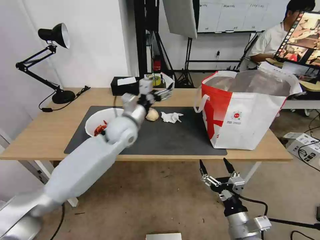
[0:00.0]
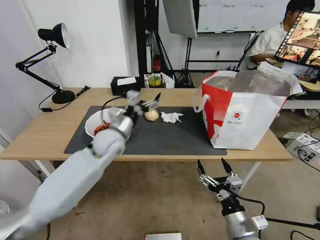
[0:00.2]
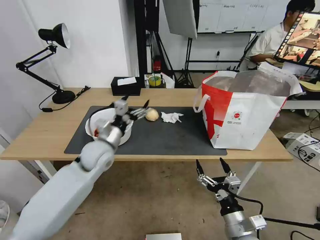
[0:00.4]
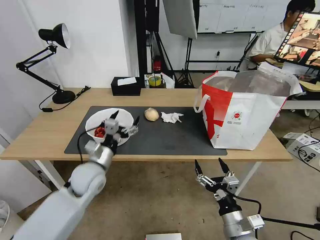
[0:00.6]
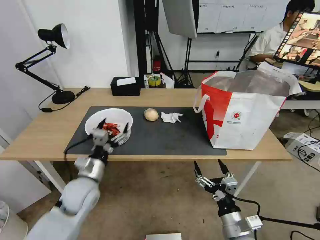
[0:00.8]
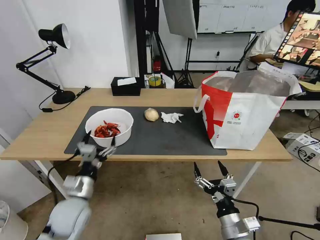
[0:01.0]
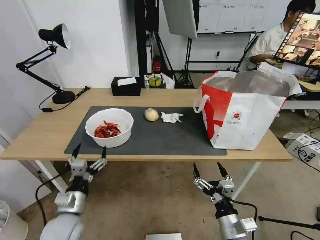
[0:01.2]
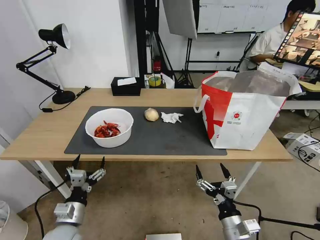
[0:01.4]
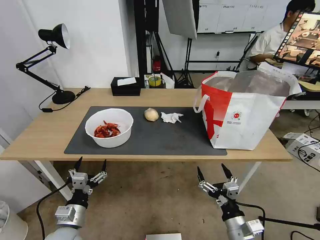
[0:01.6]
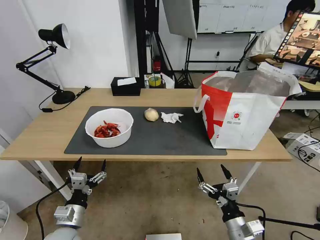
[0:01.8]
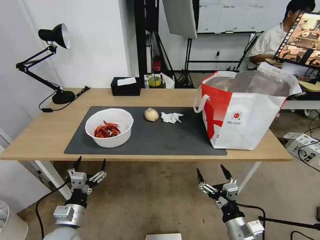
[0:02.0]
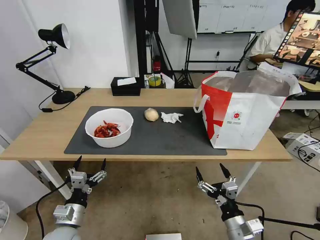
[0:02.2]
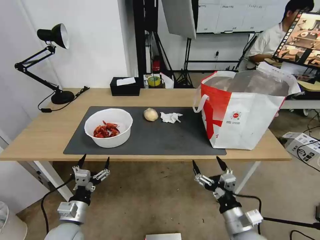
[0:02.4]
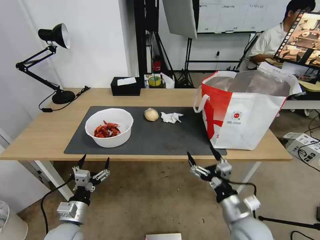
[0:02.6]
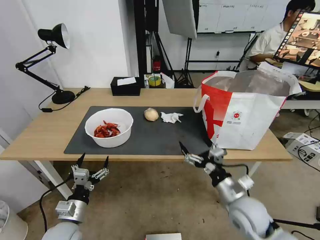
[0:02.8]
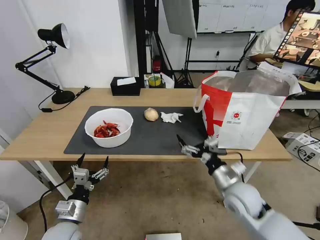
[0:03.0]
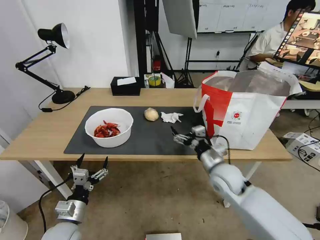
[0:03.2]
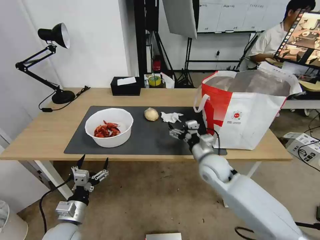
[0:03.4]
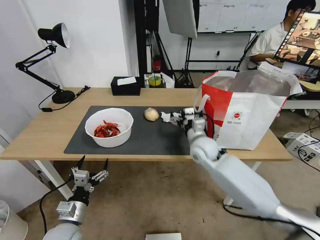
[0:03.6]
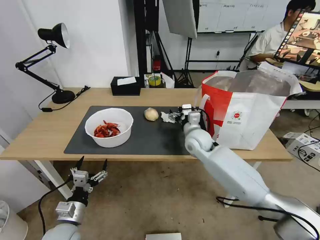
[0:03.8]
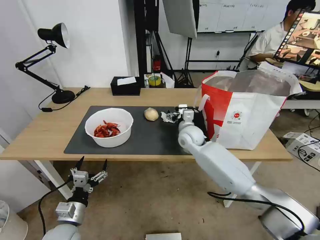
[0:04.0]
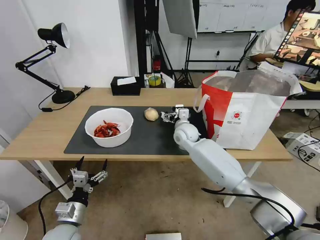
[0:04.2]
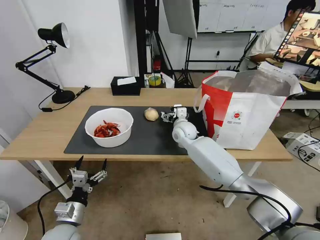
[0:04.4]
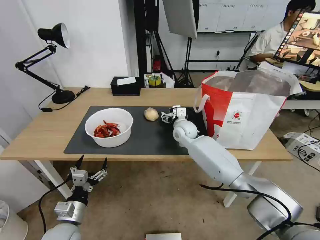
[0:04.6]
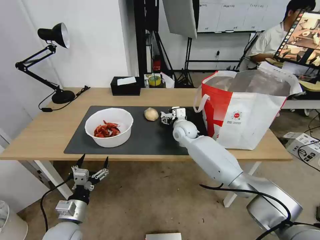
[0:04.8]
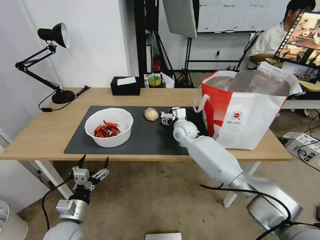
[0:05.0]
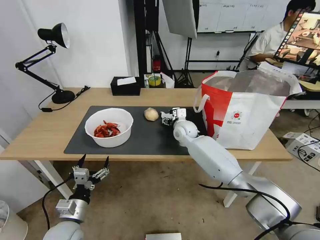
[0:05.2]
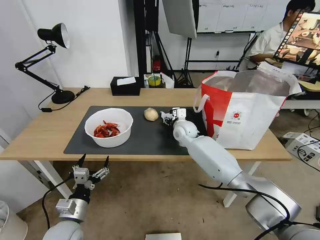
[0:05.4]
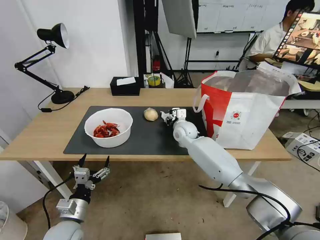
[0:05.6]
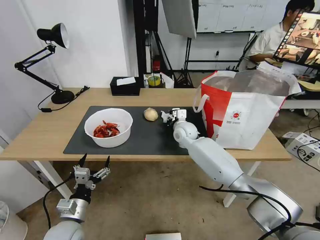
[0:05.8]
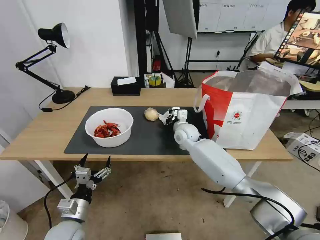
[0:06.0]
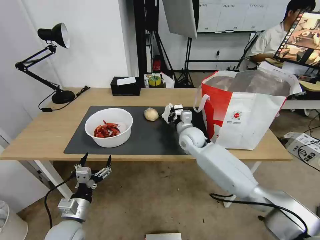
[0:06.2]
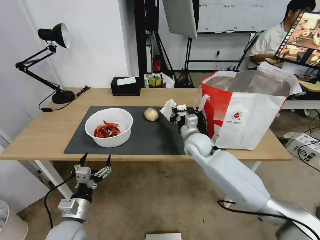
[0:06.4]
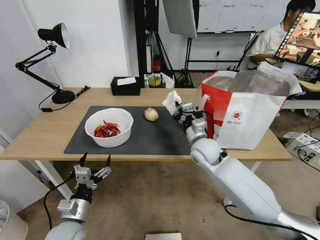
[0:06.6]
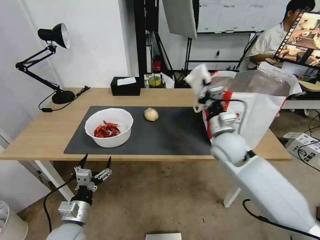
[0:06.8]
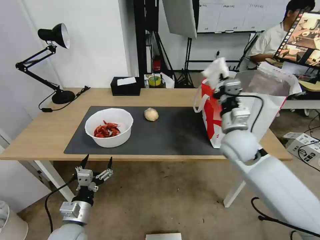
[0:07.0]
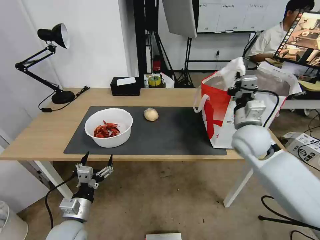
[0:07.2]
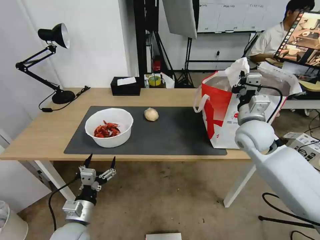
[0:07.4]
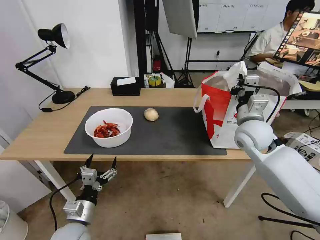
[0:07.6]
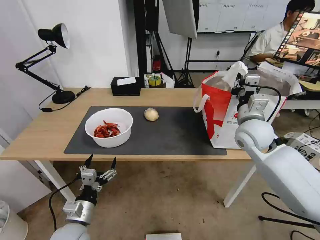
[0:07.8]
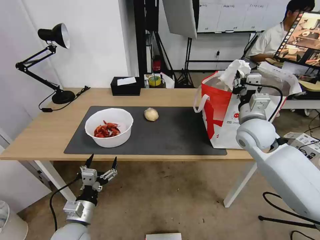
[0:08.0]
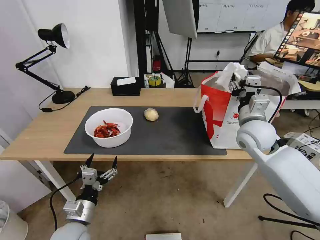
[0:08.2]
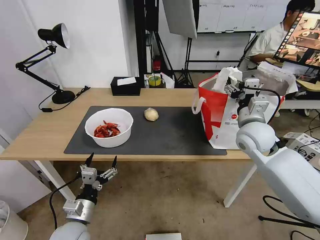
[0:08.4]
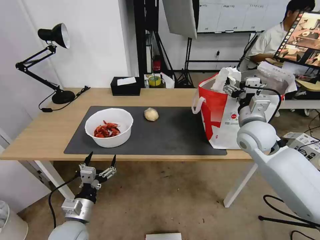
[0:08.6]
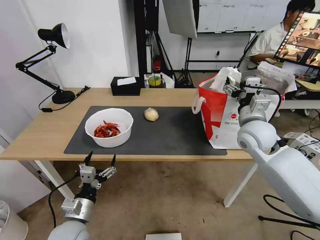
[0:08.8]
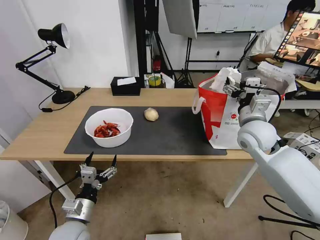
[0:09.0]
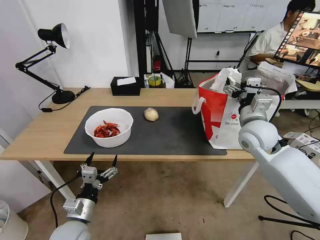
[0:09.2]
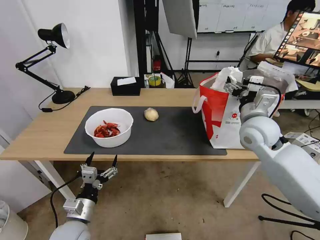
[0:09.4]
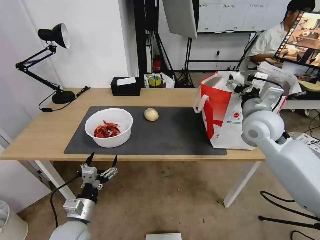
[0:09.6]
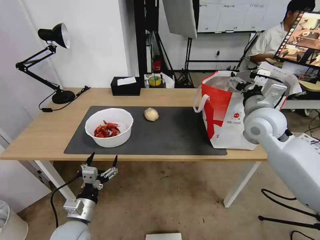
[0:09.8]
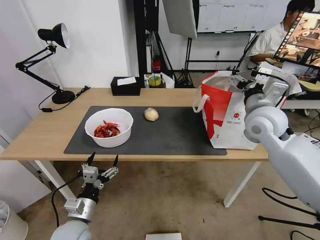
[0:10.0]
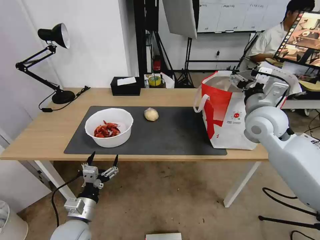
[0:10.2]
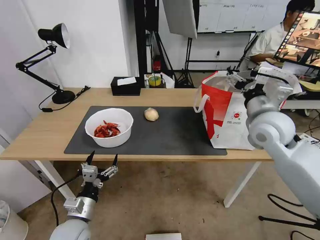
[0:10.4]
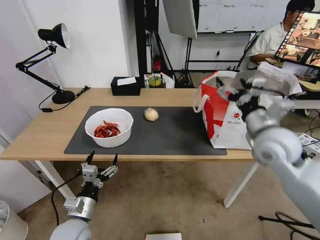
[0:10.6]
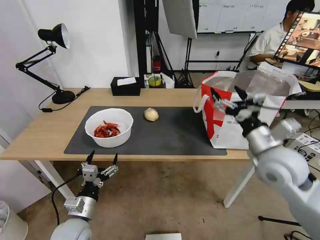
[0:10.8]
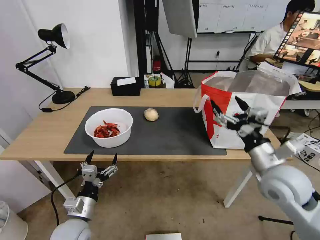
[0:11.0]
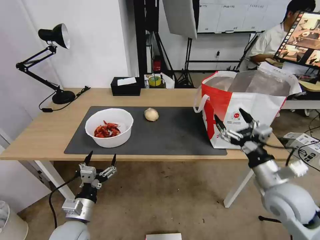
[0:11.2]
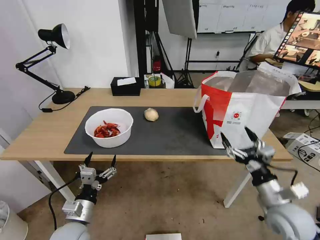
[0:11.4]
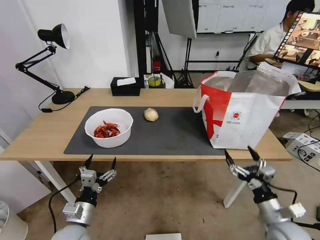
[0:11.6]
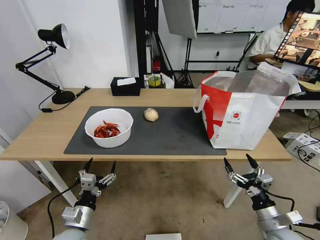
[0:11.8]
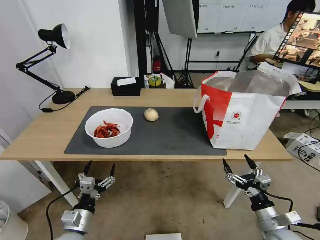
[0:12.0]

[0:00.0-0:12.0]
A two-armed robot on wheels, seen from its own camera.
Task of the whole recording: Pick up the trash from the table and place it into the takeout bag.
0:00.0 to 0:01.6: The left gripper shifts about 40 cm backward, downward and to the left.
0:01.6 to 0:03.0: The right gripper goes approximately 15 cm forward and upward.
0:03.0 to 0:04.4: The right gripper shifts roughly 30 cm forward and to the left.
0:04.4 to 0:06.0: The right gripper closes its fingers.
0:06.0 to 0:07.6: The right gripper is displaced to the right, upward and backward by approximately 25 cm.
0:07.6 to 0:09.0: The right gripper opens up.
0:09.0 to 0:10.4: The right gripper moves roughly 5 cm.
0:10.4 to 0:12.0: The right gripper travels downward and backward by roughly 35 cm.

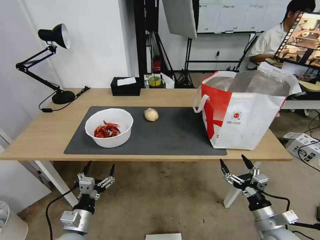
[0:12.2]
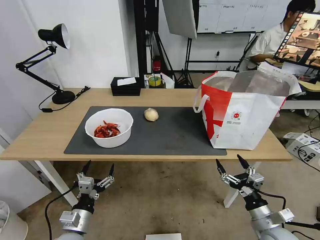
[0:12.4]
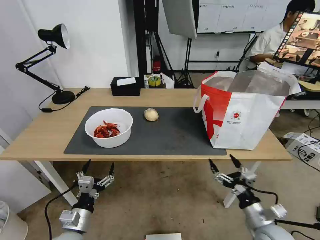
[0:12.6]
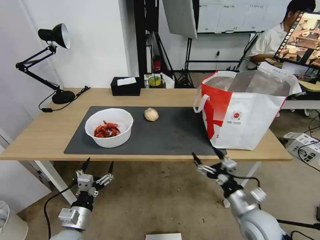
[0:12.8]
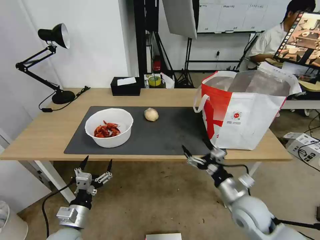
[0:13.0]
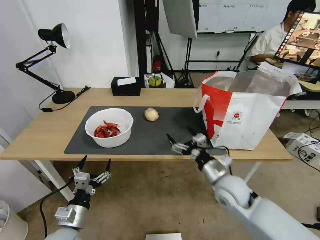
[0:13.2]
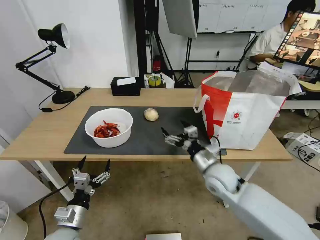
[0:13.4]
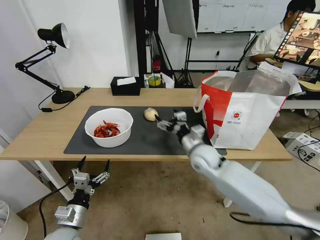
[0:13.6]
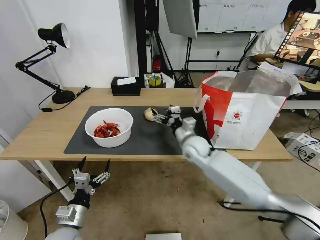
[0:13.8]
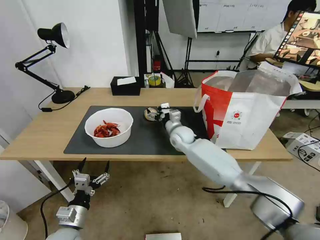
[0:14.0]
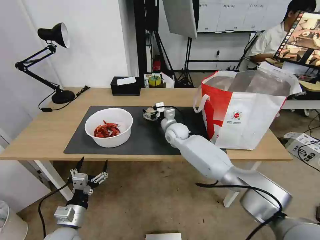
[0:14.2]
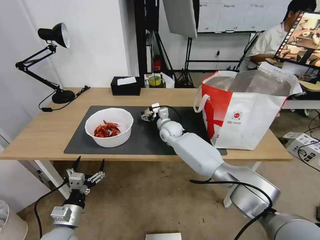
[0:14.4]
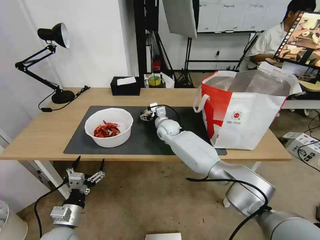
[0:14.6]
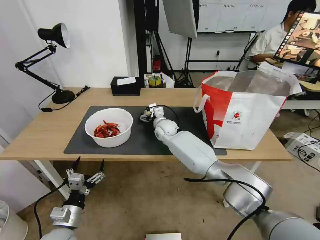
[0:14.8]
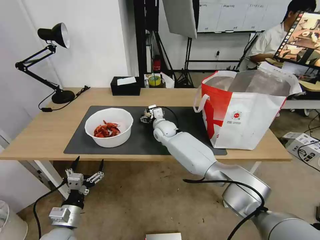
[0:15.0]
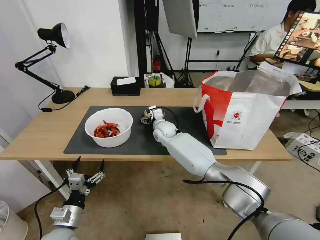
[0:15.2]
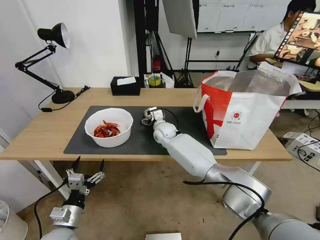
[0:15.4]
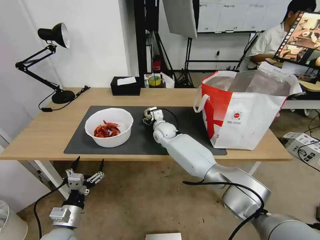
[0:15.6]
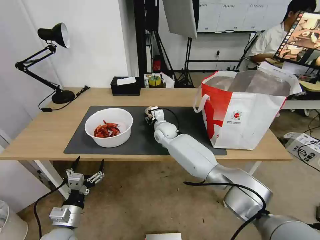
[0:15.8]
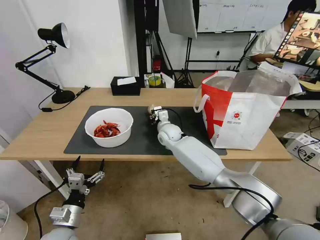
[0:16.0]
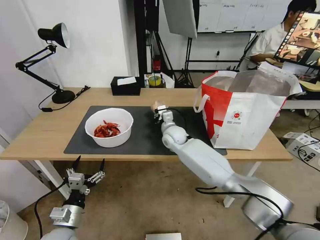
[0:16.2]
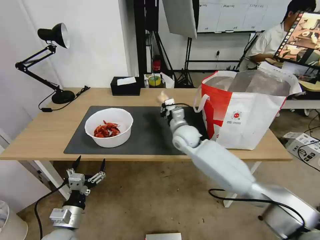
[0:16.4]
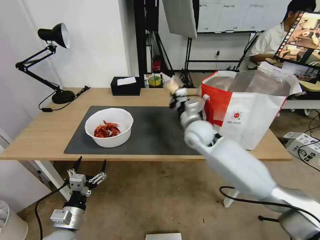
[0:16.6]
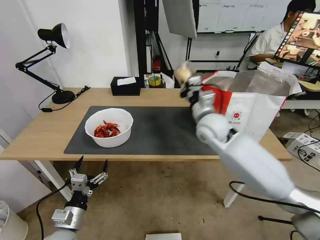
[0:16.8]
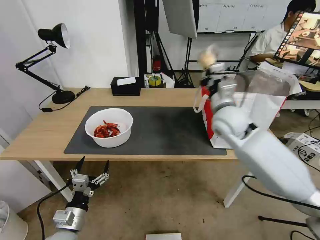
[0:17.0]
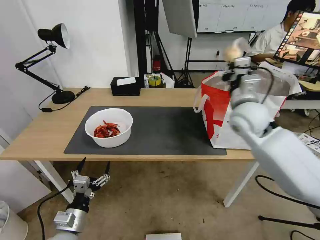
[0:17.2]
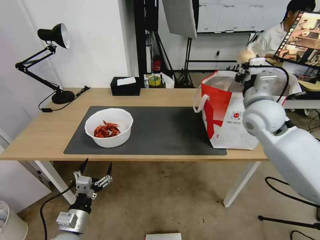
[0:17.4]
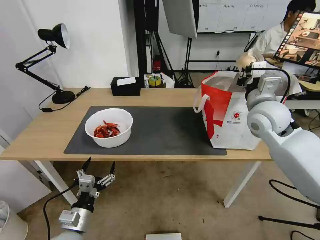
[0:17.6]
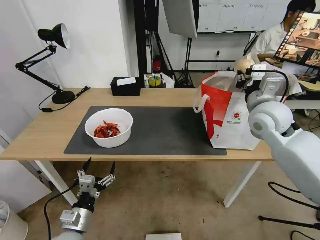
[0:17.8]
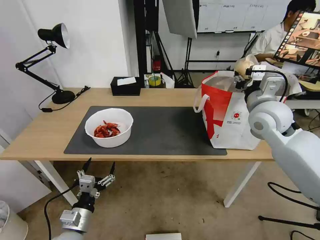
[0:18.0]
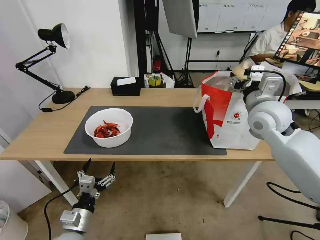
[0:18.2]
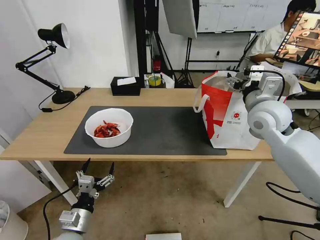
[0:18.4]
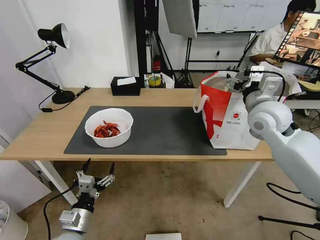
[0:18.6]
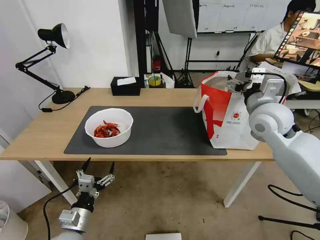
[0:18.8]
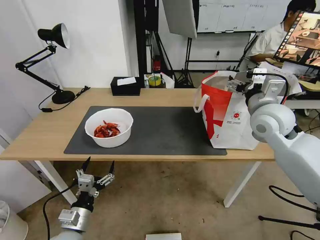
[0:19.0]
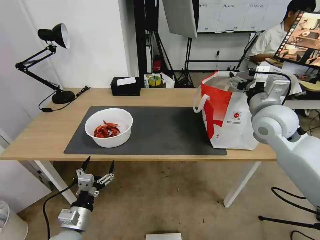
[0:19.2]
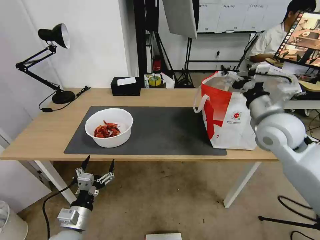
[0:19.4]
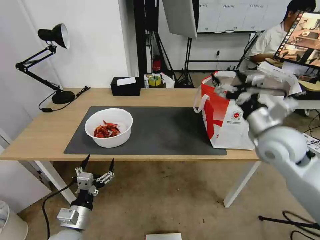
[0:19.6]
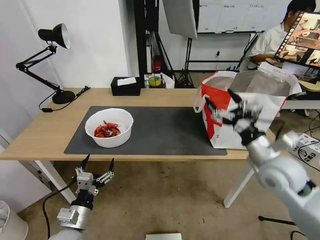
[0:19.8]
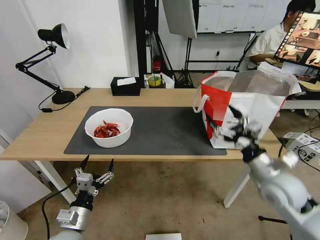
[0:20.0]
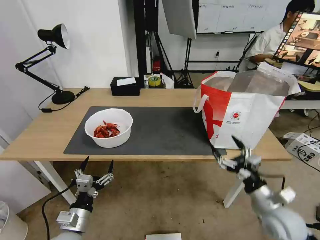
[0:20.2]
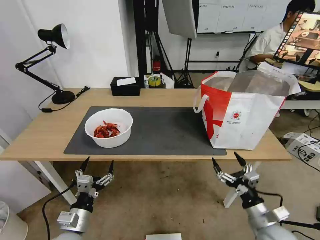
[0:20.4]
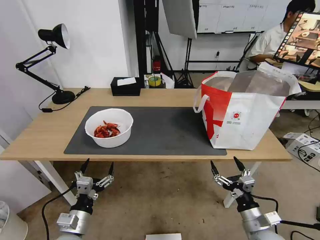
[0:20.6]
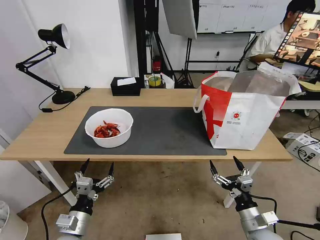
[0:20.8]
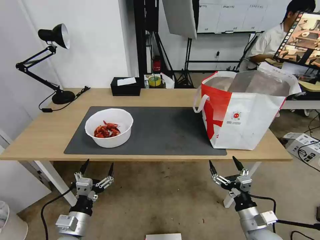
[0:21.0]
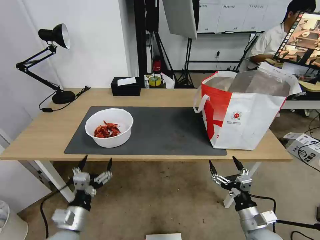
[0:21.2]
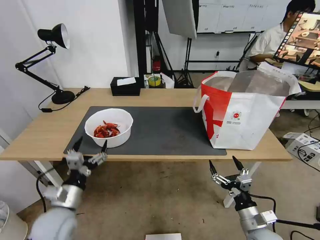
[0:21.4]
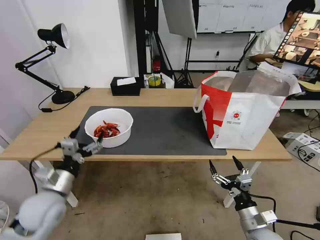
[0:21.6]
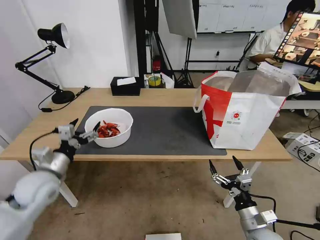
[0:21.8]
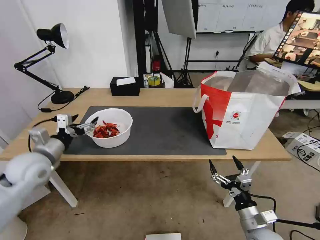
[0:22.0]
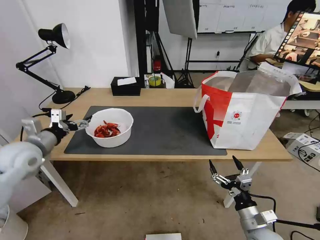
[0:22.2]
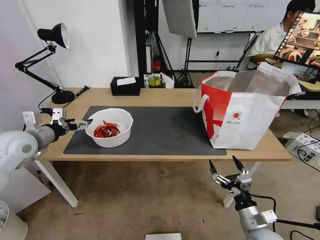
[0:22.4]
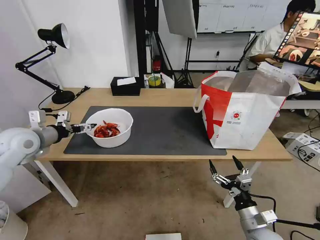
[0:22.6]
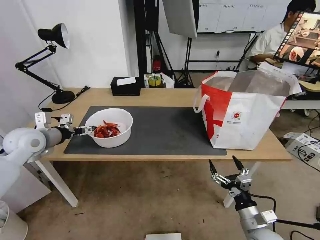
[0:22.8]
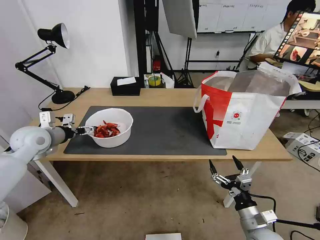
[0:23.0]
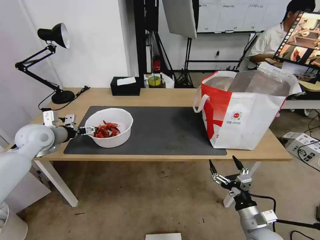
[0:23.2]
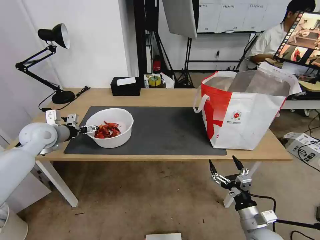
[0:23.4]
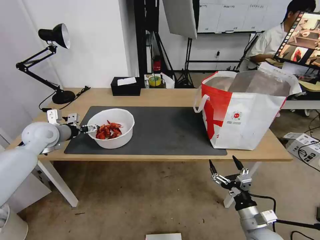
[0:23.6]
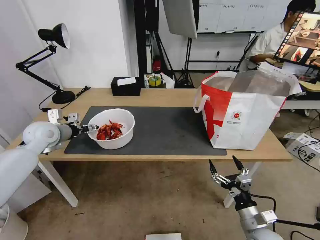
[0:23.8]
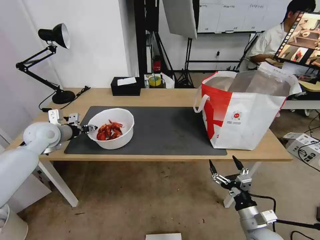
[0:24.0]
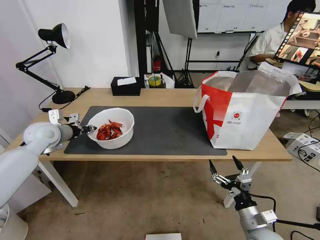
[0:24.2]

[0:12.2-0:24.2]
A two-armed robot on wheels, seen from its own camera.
Task of the whole recording: Pick up the trash from the table and place it into the takeout bag.
0:12.2 to 0:13.8: The right gripper heads forward and to the left, covering approximately 40 cm.
0:13.8 to 0:15.2: The right gripper moves to the left and forward, some 15 cm.
0:15.2 to 0:16.6: The right gripper shifts roughly 15 cm to the right, backward and upward, and closes its fingers.
0:16.6 to 0:18.2: The right gripper shifts about 20 cm to the right and upward, and opens.
0:18.2 to 0:19.8: The right gripper goes about 15 cm backward and downward.
0:19.8 to 0:21.2: The right gripper is displaced downward and backward by roughly 25 cm.
0:21.2 to 0:22.6: The left gripper moves forward, upward and to the left, approximately 30 cm.
0:22.6 to 0:24.2: The left gripper goes approximately 5 cm forward, and closes its fingers.
